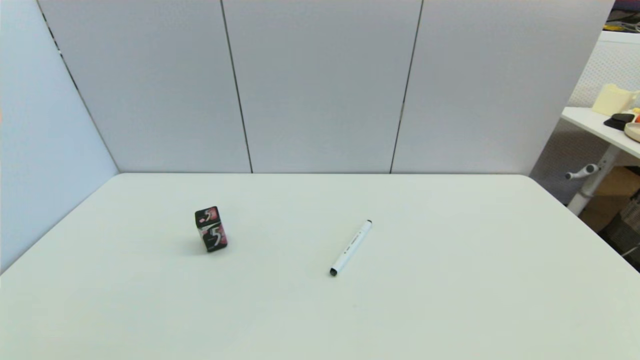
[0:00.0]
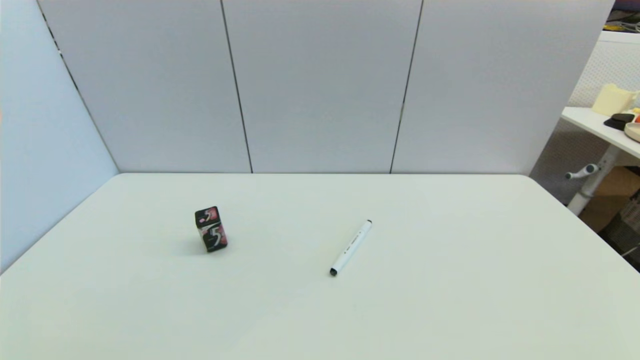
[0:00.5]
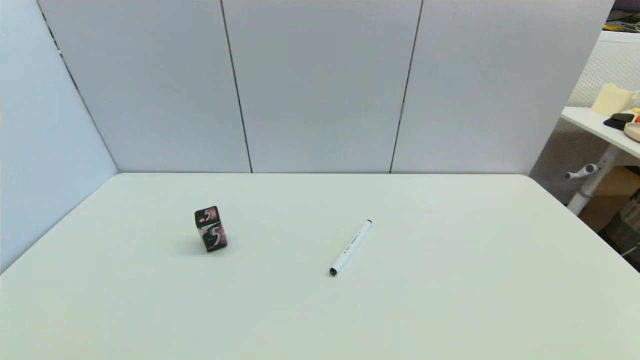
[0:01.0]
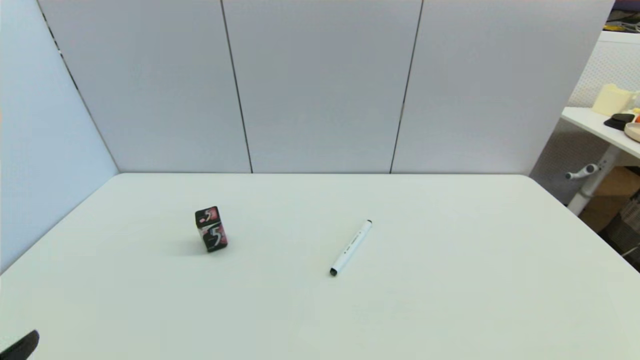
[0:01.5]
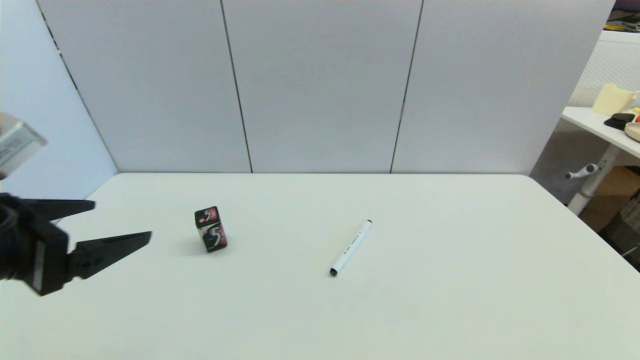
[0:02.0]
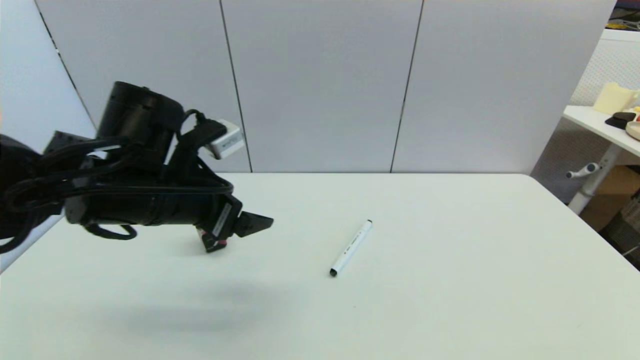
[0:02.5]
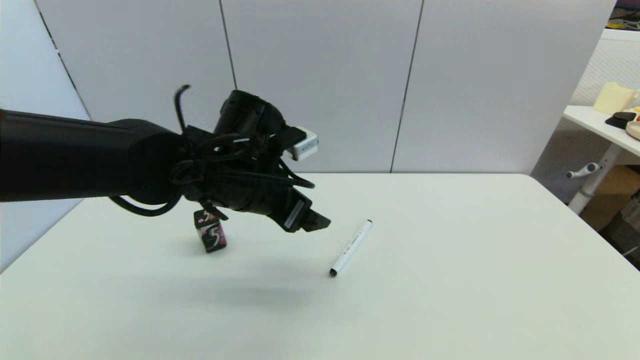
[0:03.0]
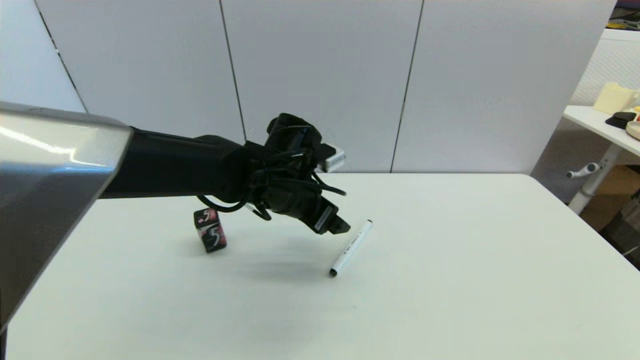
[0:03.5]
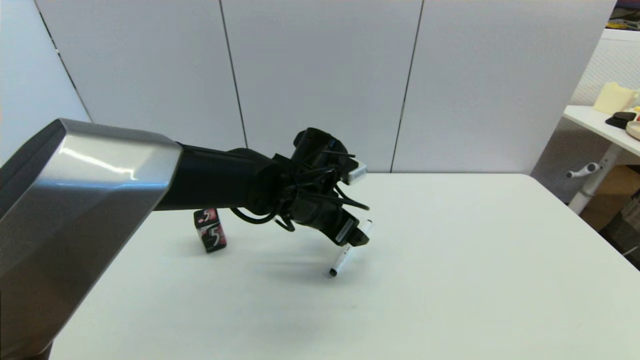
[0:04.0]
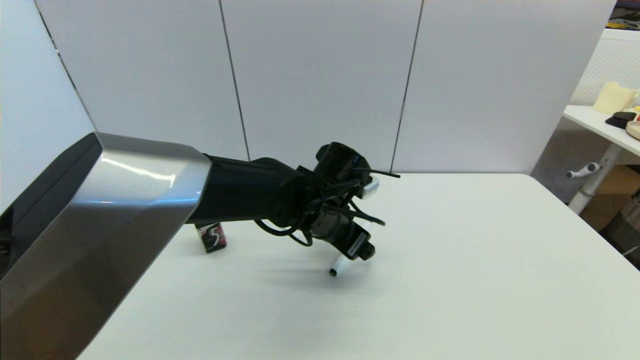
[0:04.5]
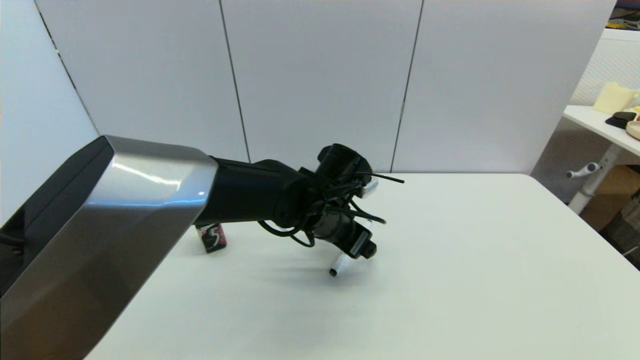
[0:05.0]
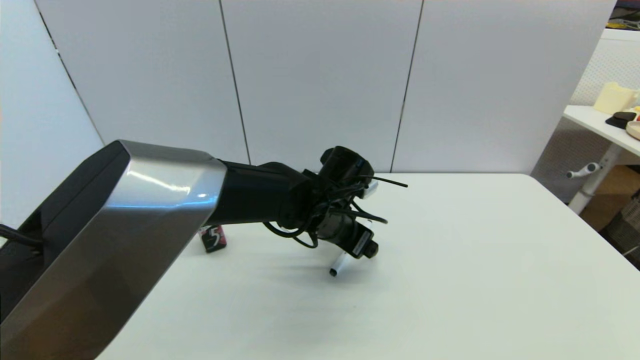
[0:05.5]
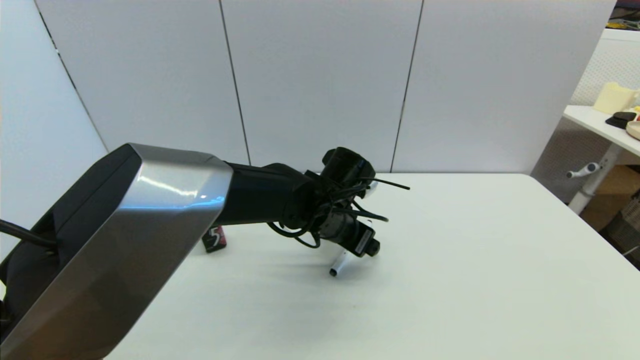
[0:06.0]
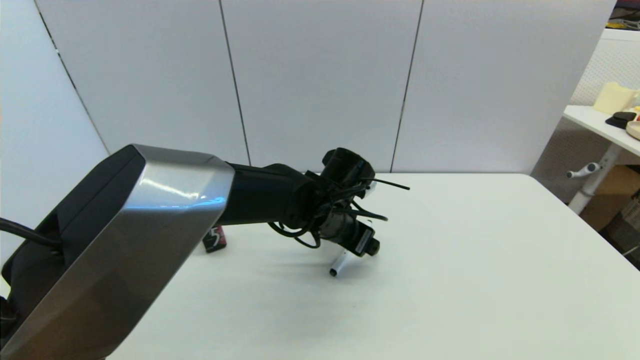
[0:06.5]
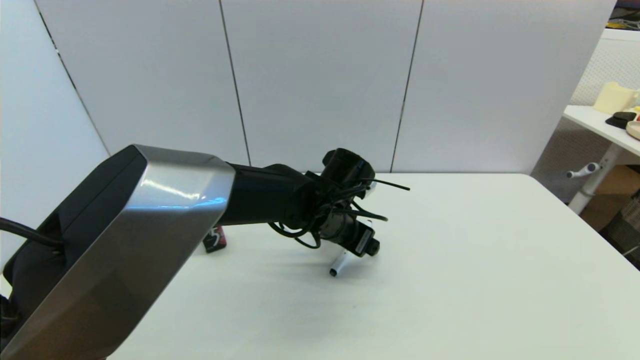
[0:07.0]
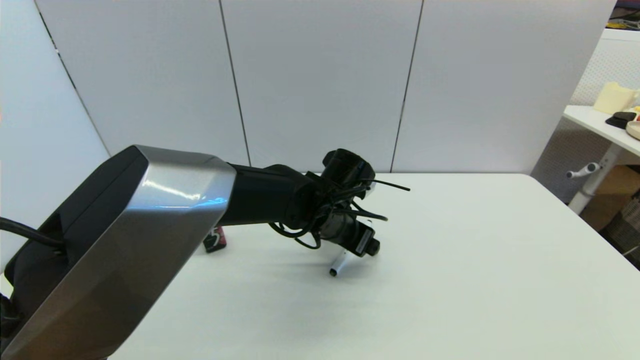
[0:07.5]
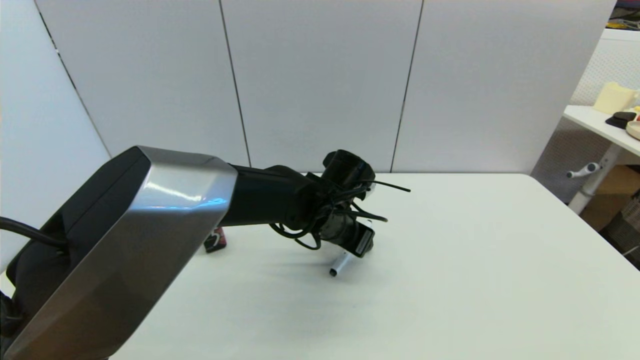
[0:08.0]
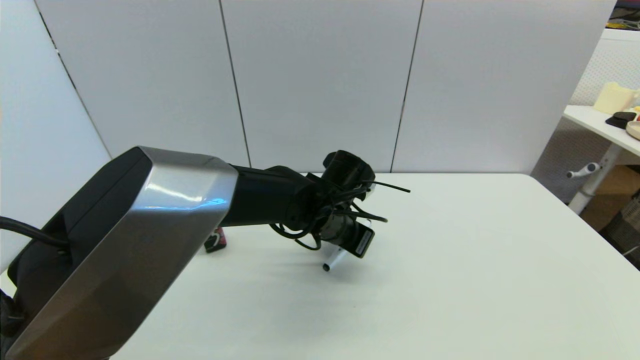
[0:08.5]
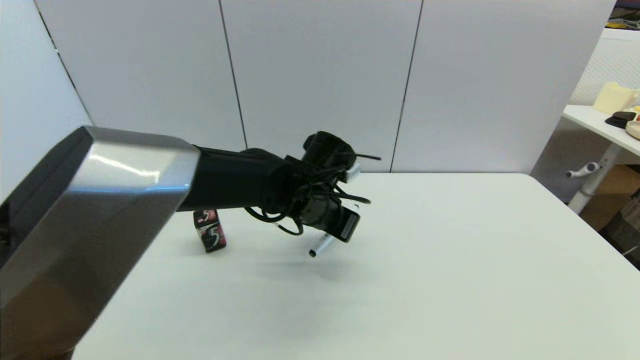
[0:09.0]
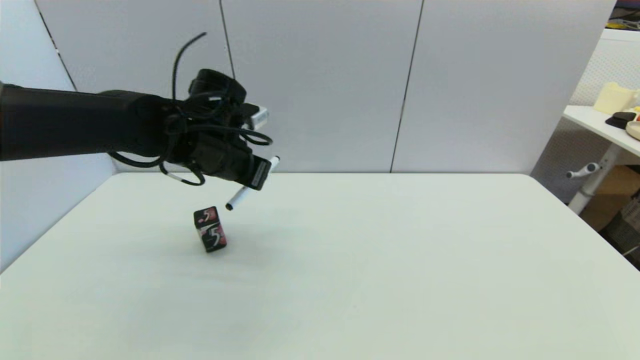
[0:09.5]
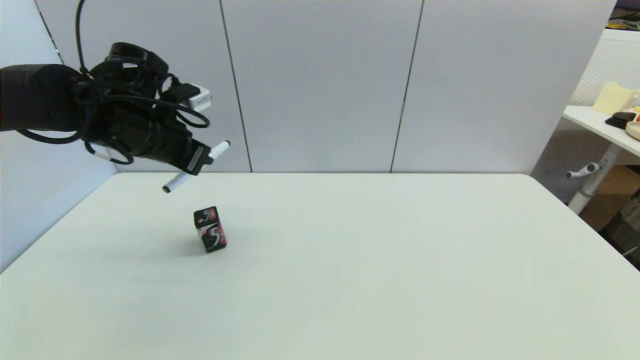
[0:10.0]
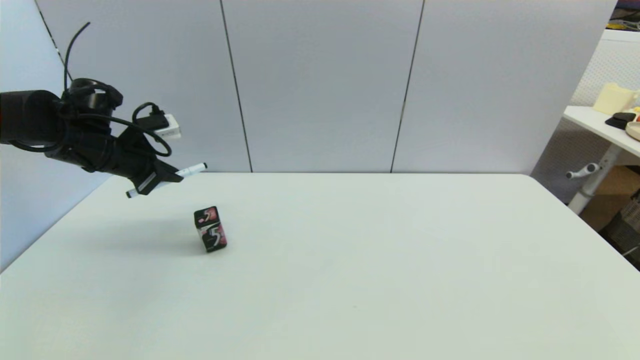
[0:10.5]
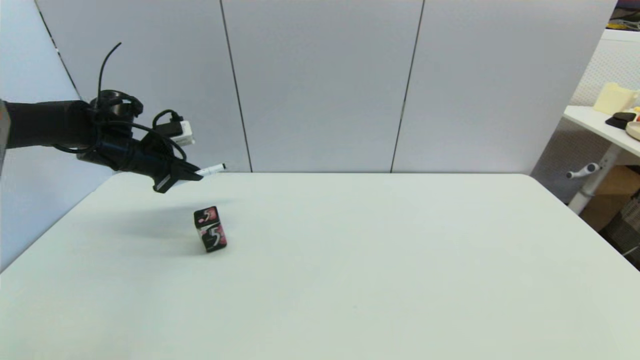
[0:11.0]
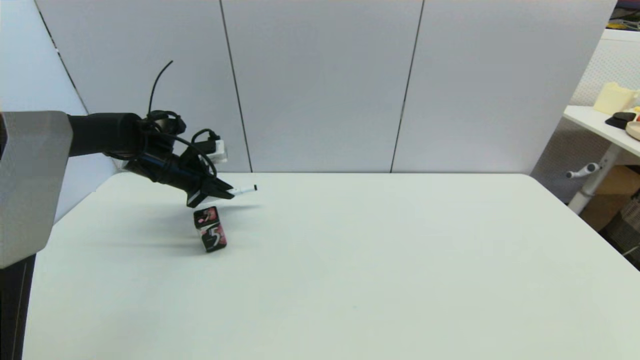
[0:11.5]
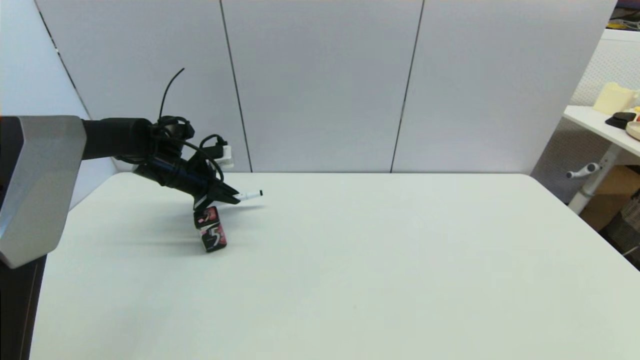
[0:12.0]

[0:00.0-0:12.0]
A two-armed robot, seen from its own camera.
Task of the whole recording: put the black marker in the designated position.
Step, 0:01.5 to 0:08.0: Grasp the Marker pen with left gripper.
0:00.0 to 0:02.0: The left gripper goes approximately 25 cm upward and forward.
0:02.0 to 0:04.0: The left gripper goes some 30 cm to the right and forward.
0:04.0 to 0:06.0: The grippers stay close to where they were, moving slightly.
0:06.0 to 0:08.0: The two grippers keep their place.
0:08.0 to 0:10.0: The left gripper heads to the left and upward, covering some 30 cm, and closes its fingers.
0:10.0 to 0:12.0: The left gripper shifts approximately 15 cm downward and forward.

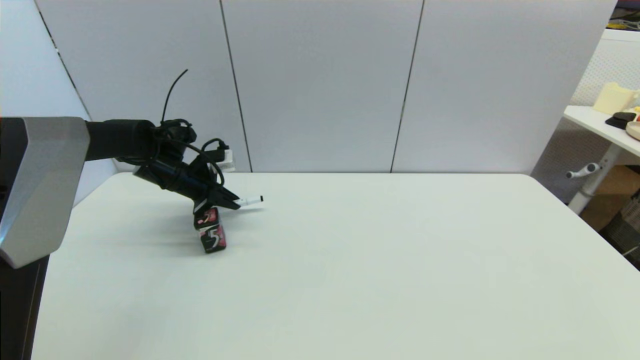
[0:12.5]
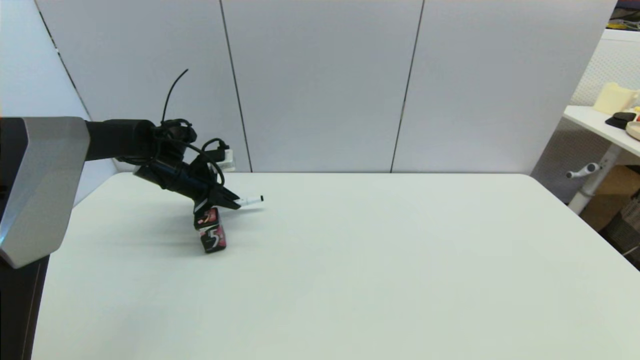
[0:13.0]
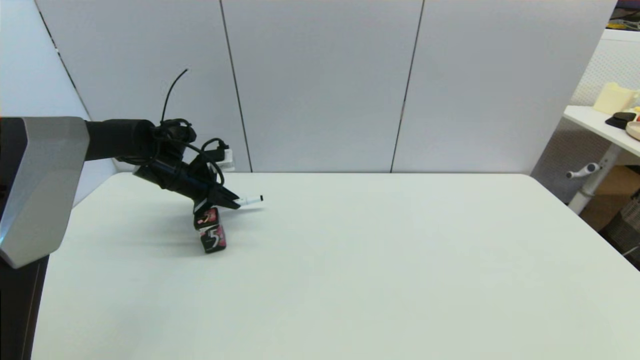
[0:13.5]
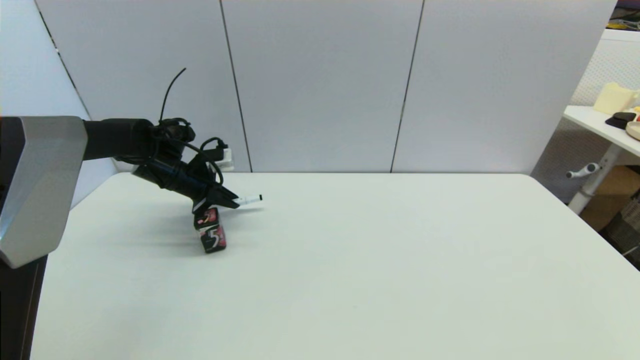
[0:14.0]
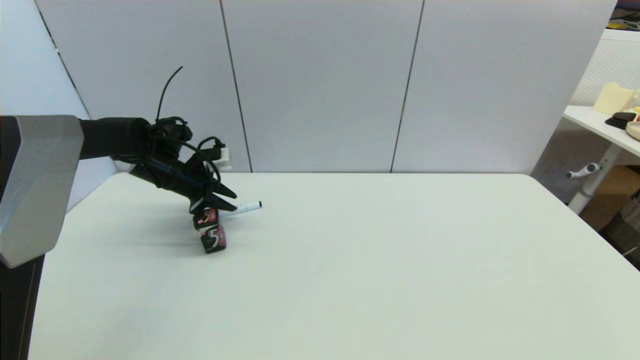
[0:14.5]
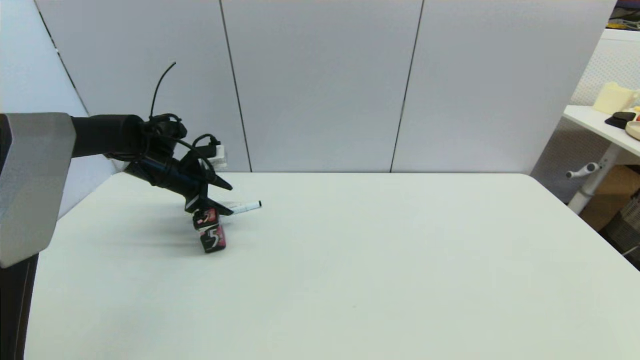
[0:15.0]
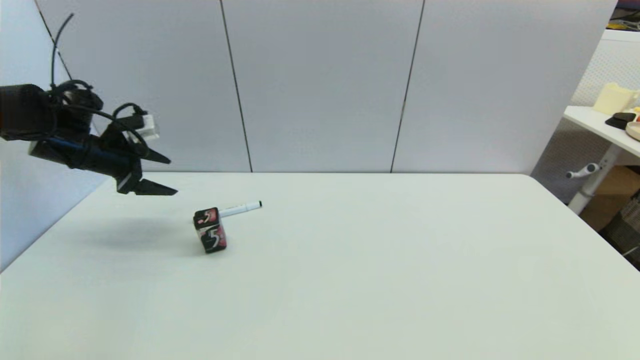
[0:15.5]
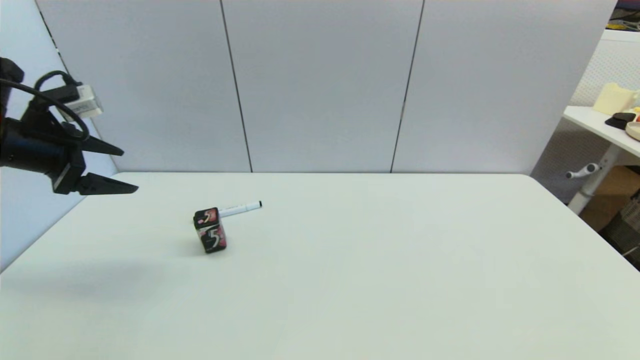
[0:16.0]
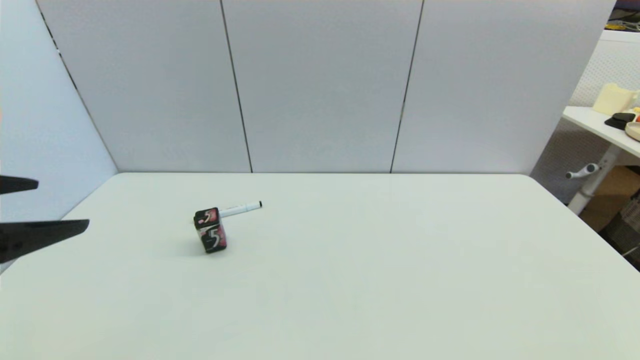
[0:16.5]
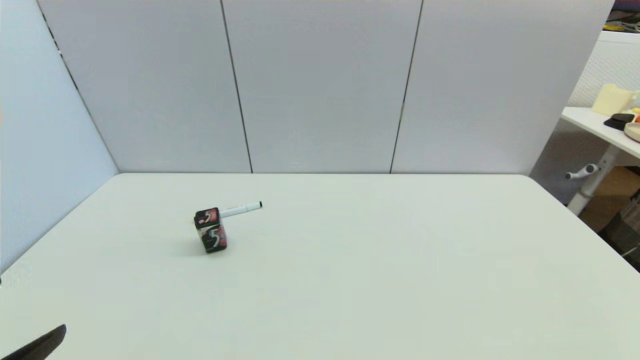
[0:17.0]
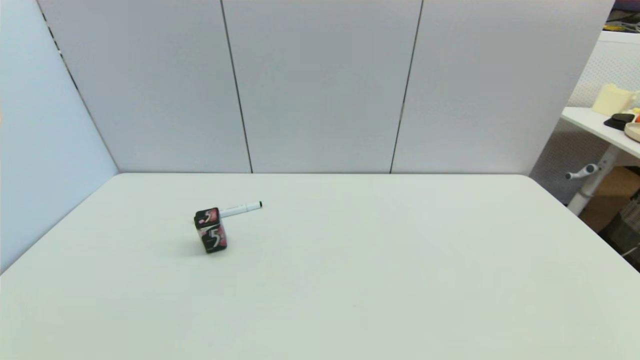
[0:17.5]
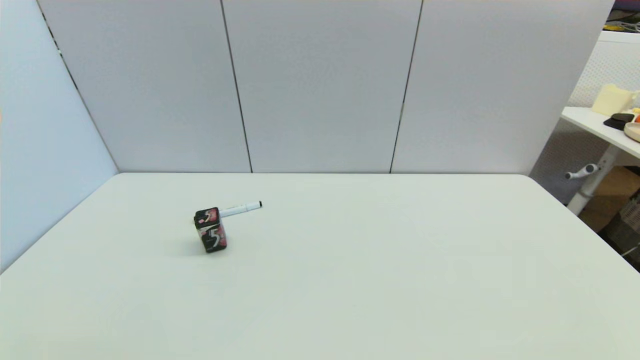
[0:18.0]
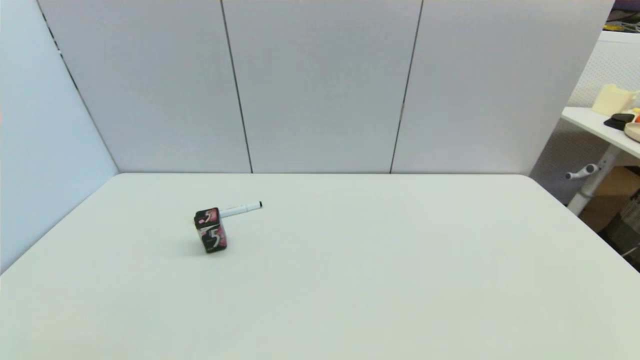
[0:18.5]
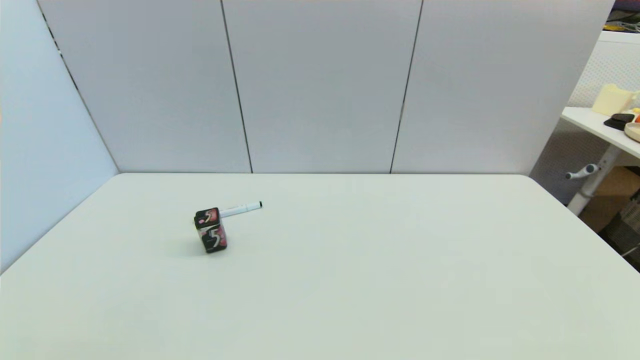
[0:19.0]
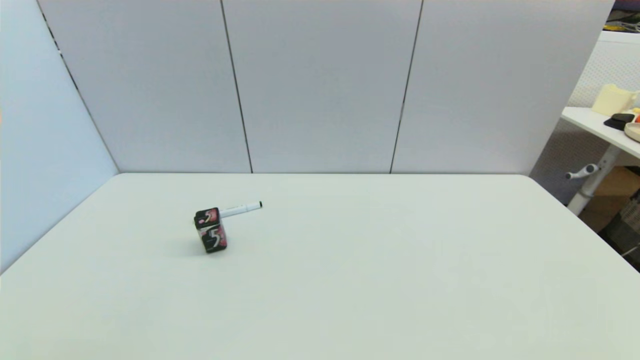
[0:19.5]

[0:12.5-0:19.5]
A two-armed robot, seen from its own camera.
Task of the whole recording: put the black marker in the designated position.
Step, 0:12.5 to 0:14.5: Place the Marker pen on the table with left gripper.
0:12.5 to 0:14.5: Both grippers stay put.
0:14.5 to 0:16.0: The left gripper heads backward, upward and to the left, covering some 25 cm, and opens its fingers.
0:16.0 to 0:17.5: The left gripper heads backward and downward, covering roughly 35 cm.
